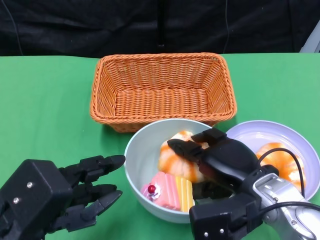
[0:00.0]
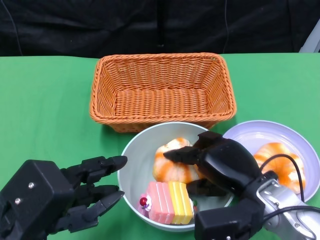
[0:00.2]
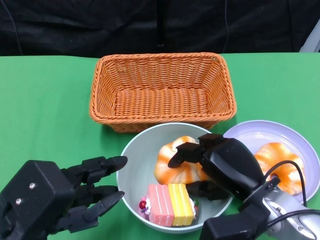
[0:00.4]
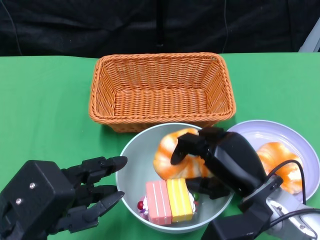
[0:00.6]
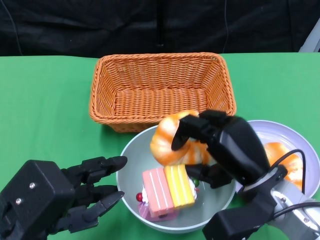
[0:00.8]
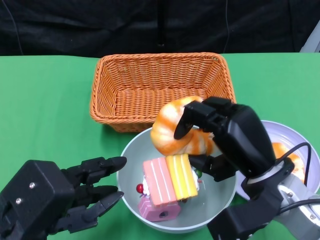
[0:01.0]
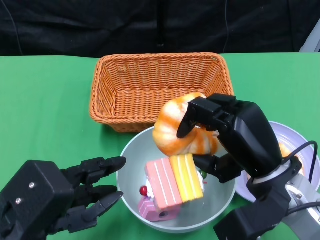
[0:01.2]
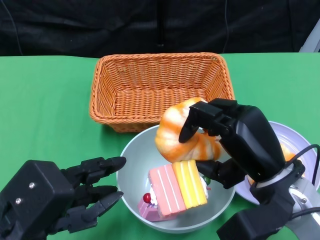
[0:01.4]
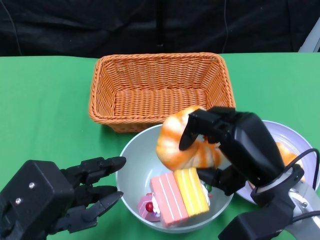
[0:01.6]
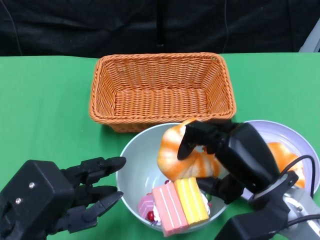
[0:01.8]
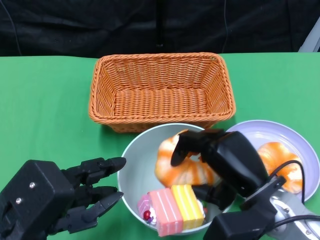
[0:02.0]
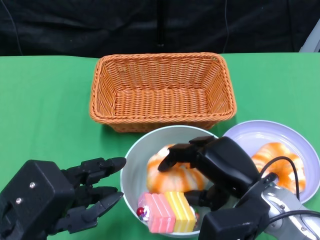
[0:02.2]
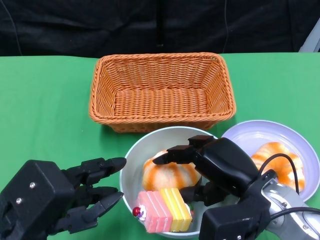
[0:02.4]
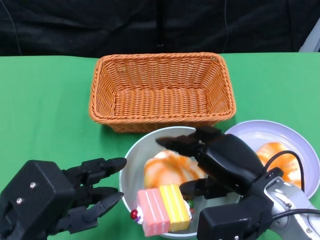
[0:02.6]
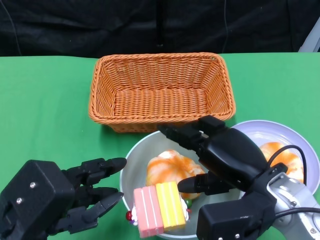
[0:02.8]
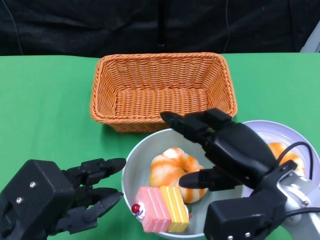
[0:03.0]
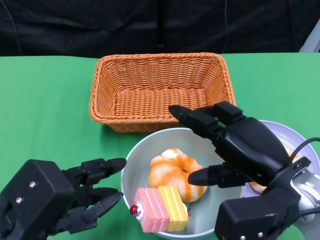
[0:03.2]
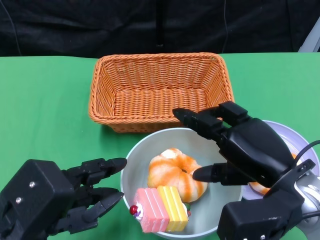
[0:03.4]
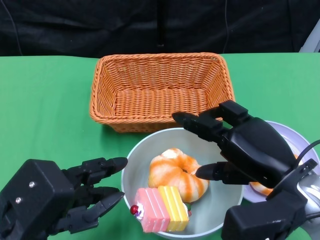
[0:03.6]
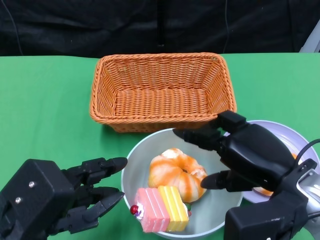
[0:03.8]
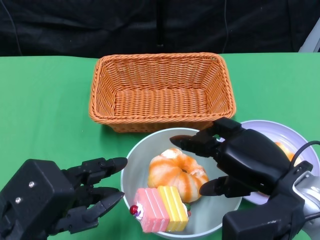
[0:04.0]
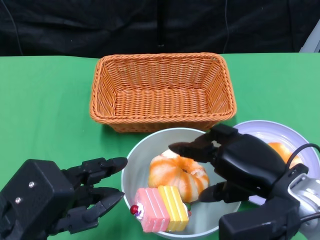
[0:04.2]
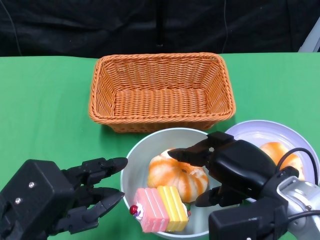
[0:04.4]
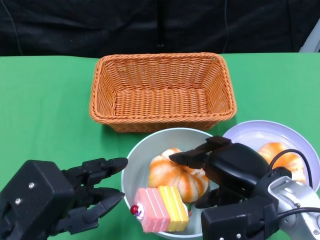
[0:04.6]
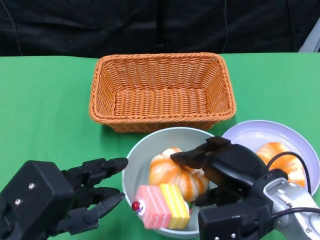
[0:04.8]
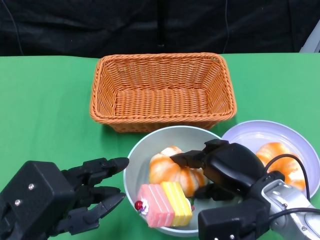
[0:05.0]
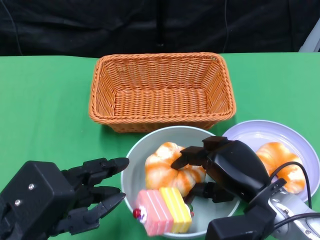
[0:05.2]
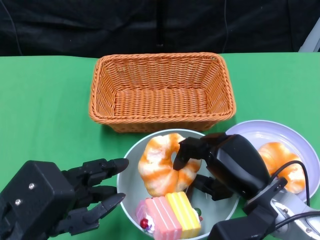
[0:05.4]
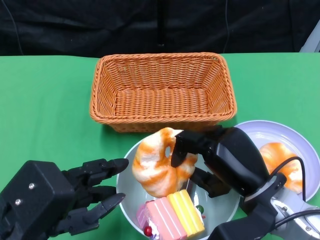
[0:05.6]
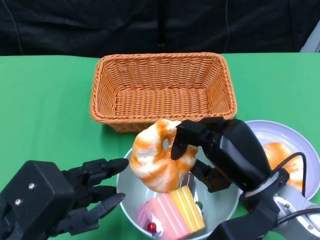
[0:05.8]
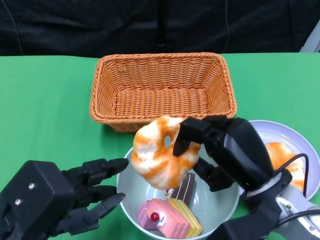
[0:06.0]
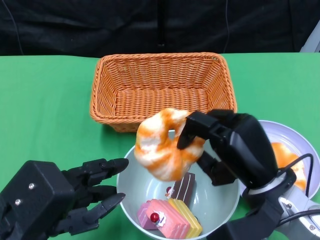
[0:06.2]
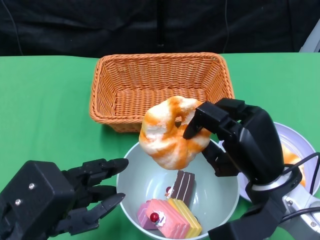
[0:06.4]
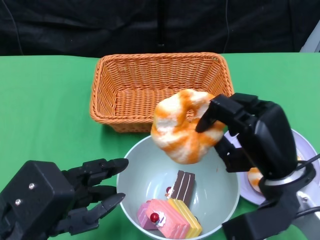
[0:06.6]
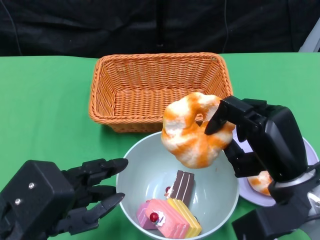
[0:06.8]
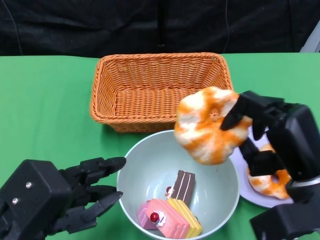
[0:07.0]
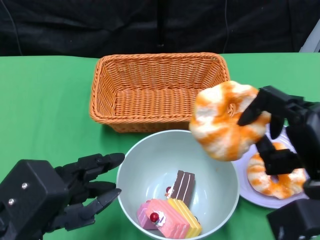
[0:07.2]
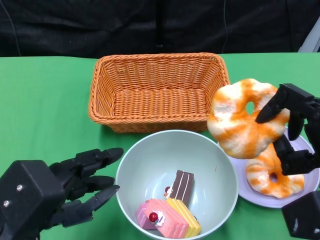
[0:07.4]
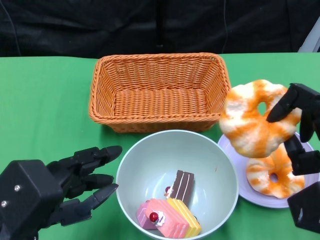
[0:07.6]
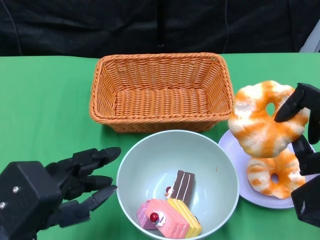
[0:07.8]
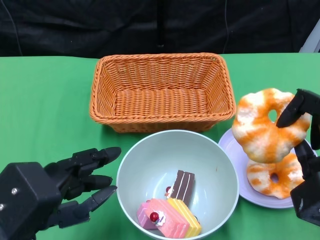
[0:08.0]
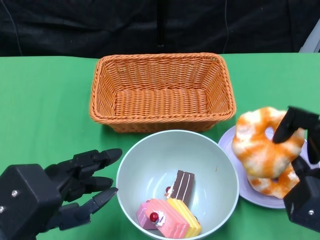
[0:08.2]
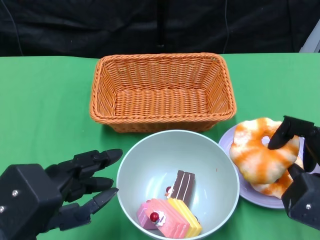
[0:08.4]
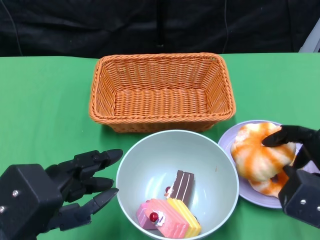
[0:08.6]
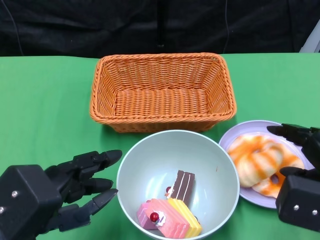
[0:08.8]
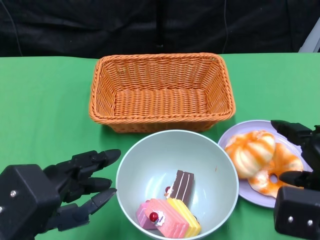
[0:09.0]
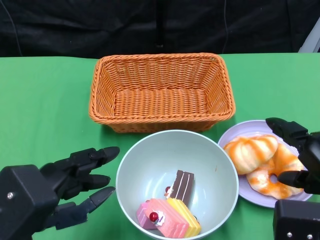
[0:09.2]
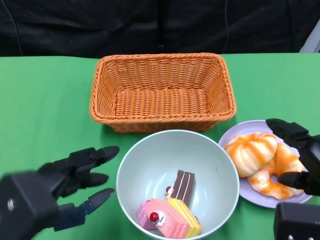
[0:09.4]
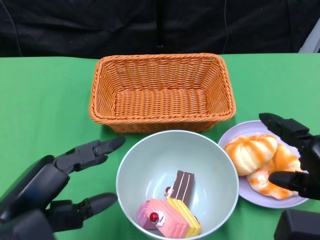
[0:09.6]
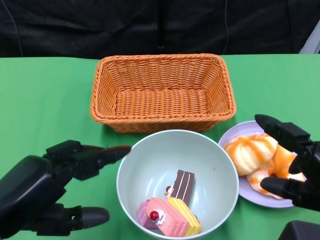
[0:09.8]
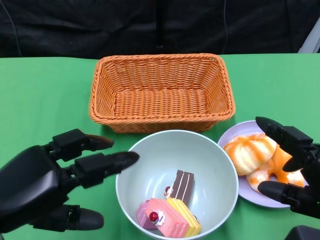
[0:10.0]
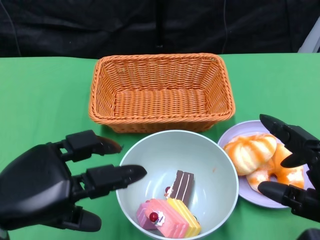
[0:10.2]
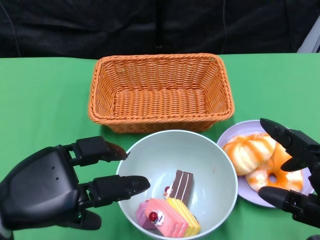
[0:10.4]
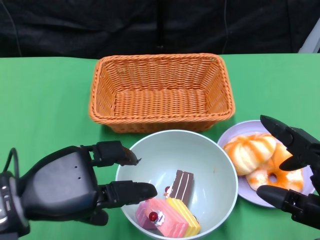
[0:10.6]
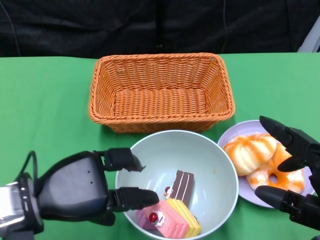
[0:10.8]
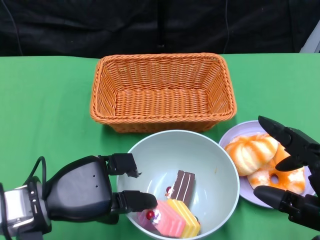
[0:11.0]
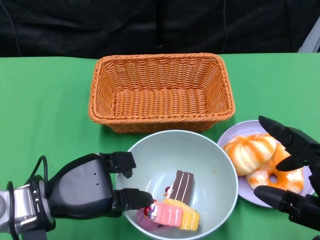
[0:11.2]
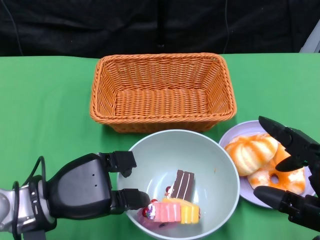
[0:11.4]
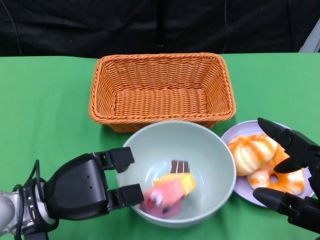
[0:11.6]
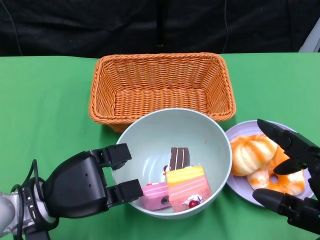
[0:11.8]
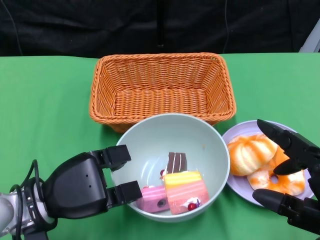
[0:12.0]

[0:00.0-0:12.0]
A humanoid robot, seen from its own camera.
Step, 0:00.0 to 0:09.0: Pick up the bread with the right gripper and place it on the plate.
0:03.0 to 0:04.4: The hands stay close to where they were, moving slightly.
0:06.0 to 0:07.6: The right hand is displaced to the right by some 10 cm.
0:09.0 to 0:10.4: The right hand heads backward, covering about 5 cm.
0:10.4 to 0:12.0: The left hand heads downward and forward, covering roughly 10 cm.

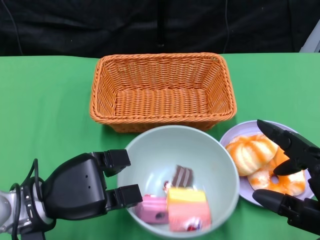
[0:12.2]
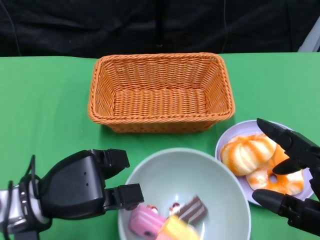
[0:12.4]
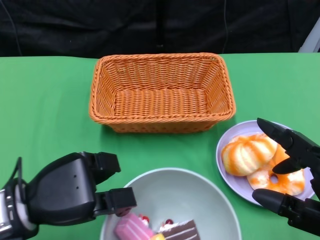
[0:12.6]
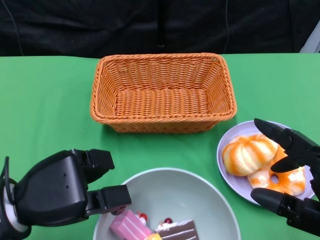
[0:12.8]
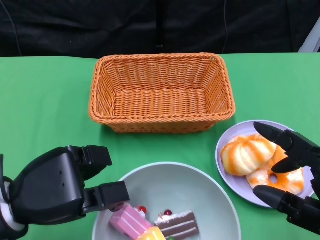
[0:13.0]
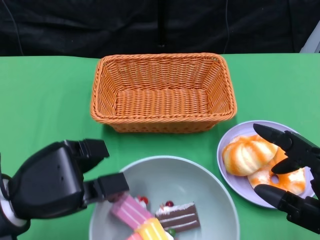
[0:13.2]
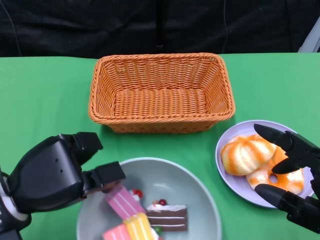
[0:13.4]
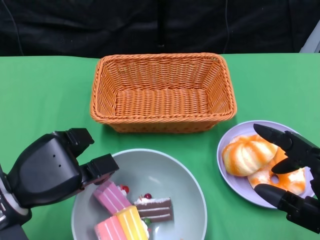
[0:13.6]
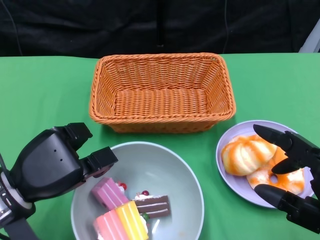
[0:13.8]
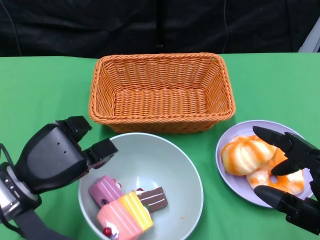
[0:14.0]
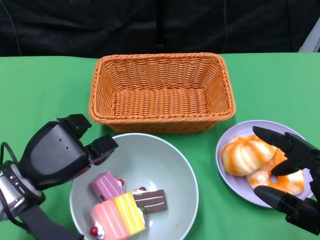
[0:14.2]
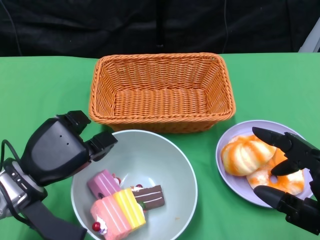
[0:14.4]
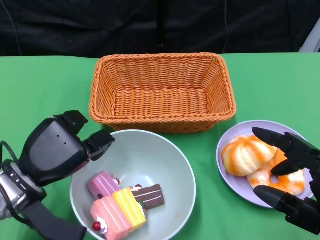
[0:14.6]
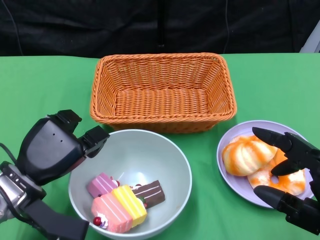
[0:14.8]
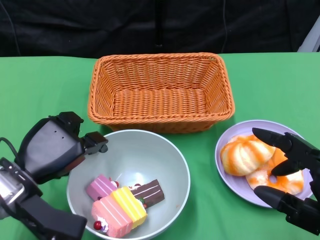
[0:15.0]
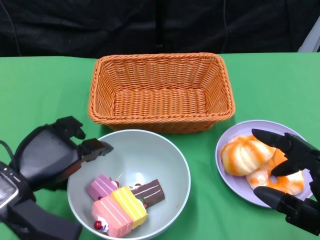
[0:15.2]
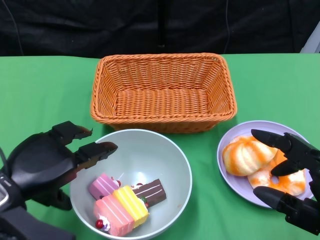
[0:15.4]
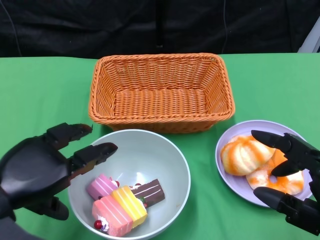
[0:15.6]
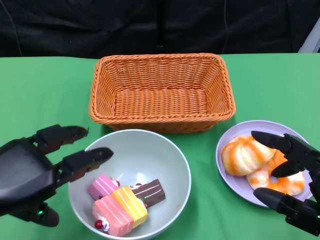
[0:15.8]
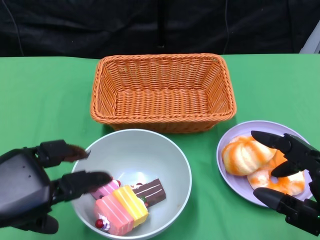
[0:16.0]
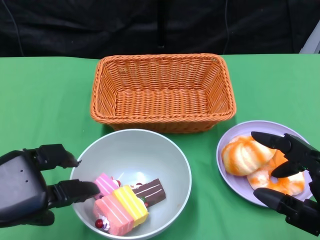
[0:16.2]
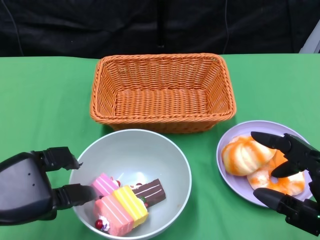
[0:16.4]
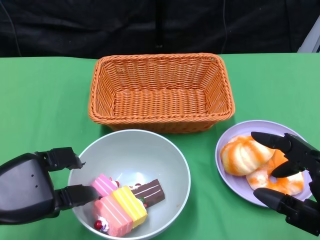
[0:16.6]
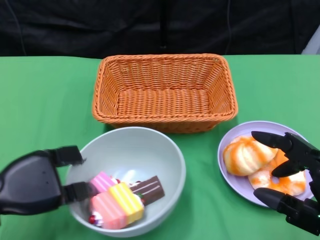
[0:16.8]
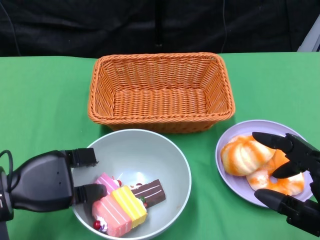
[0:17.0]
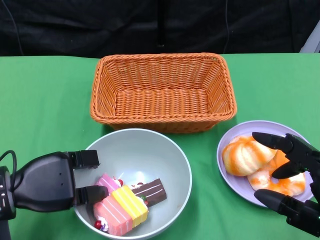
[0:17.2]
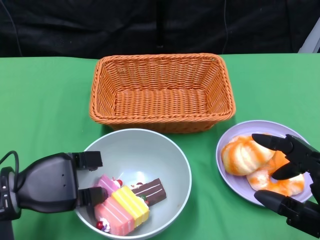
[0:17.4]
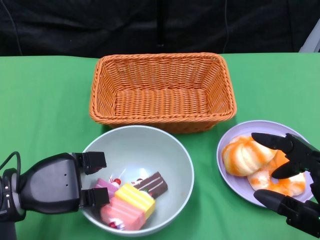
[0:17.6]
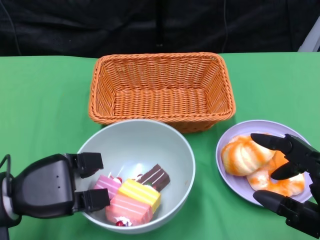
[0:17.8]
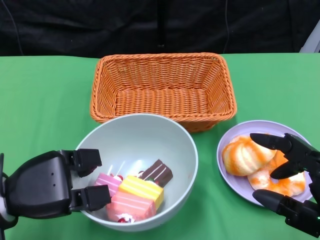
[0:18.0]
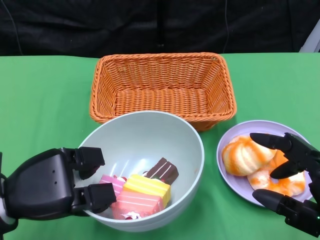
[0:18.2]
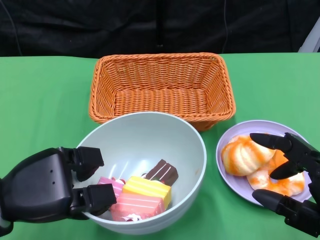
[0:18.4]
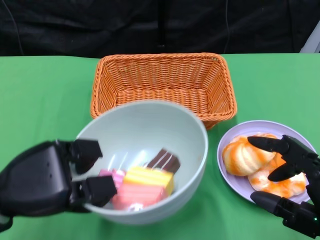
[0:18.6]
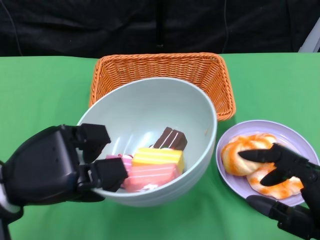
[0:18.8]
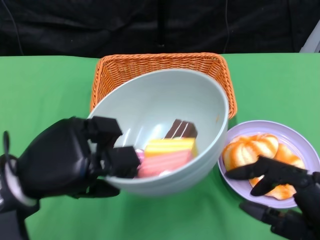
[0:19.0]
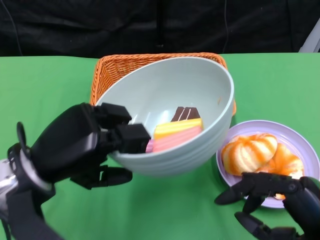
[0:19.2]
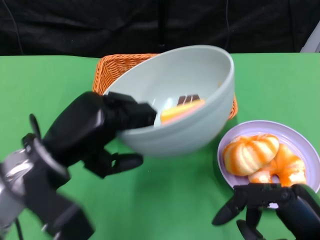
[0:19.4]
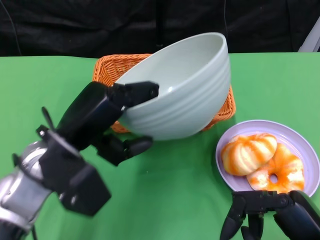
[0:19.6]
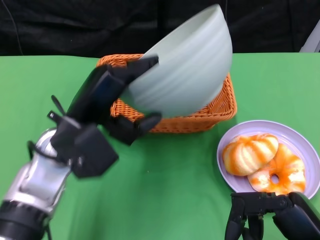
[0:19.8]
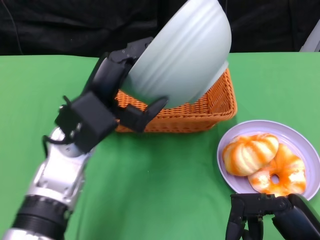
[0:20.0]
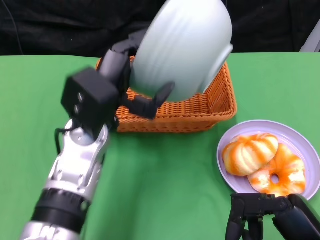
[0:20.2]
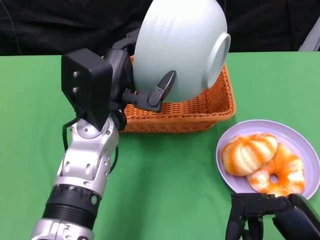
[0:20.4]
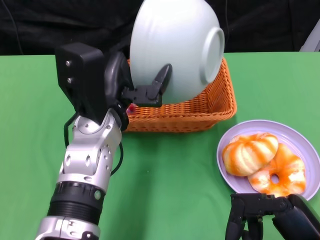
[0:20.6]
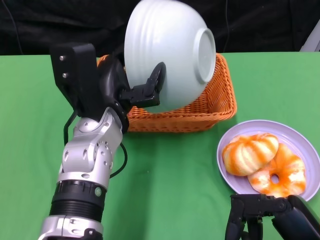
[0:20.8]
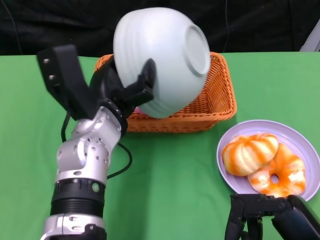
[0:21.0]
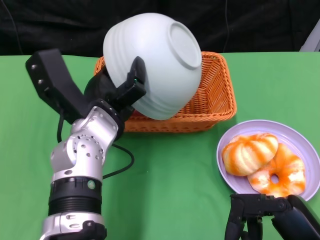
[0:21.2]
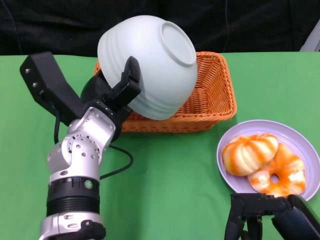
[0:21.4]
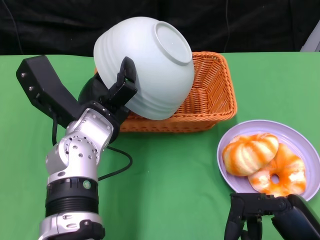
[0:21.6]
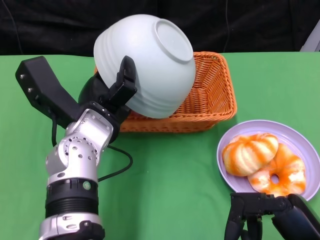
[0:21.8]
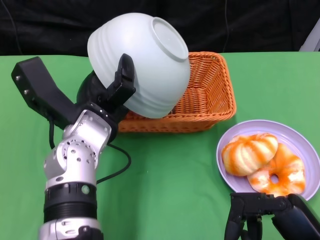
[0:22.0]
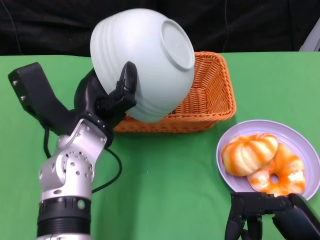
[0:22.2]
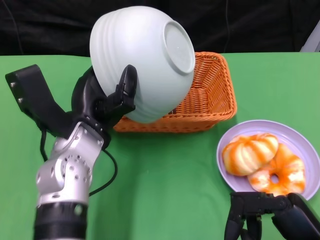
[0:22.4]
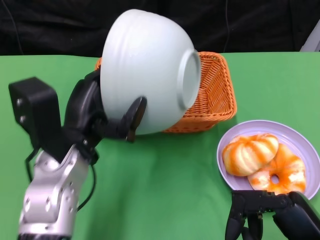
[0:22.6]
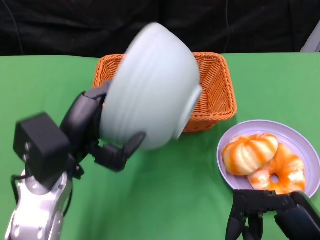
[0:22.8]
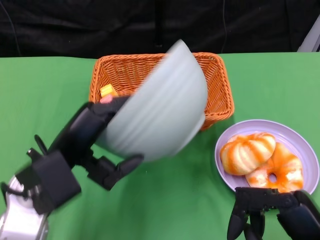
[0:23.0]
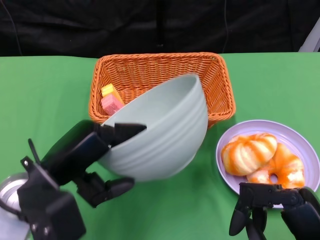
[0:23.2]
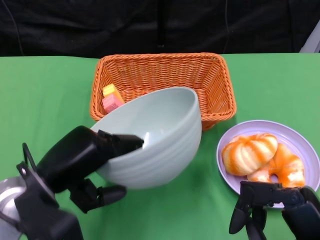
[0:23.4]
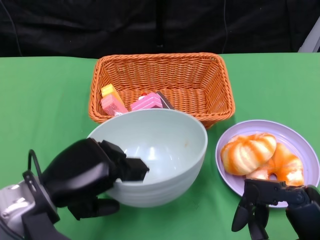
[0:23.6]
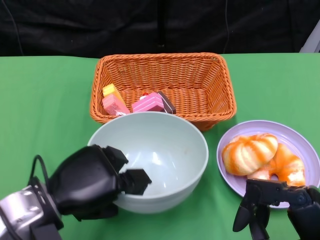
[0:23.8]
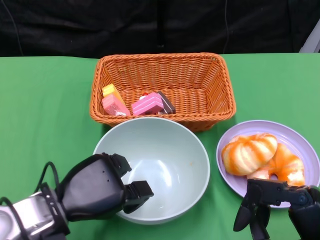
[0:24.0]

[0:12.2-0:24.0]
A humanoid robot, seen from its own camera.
Step, 0:12.2 to 0:17.0: Grasp the bowl with the left gripper.
Step, 0:17.2 to 0:22.2: Pour the cake into the basket with the left gripper.
0:18.2 to 0:19.6: The left hand travels to the right and upward by some 10 cm.
0:19.6 to 0:21.0: The left hand travels to the right and forward by approximately 10 cm.
0:21.0 to 0:22.6: The left hand ends up roughly 5 cm from where it was.
0:22.6 to 0:24.0: The left hand travels downward by about 5 cm.
